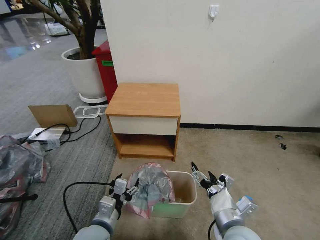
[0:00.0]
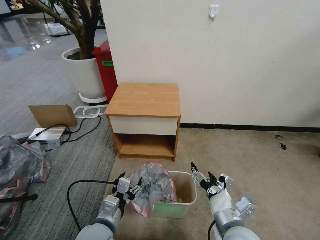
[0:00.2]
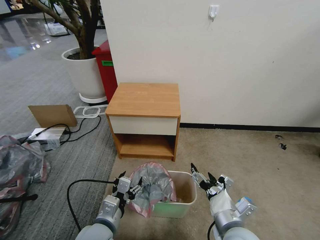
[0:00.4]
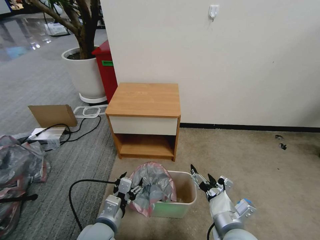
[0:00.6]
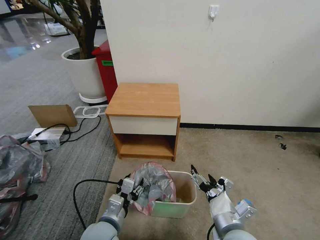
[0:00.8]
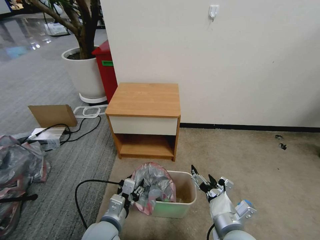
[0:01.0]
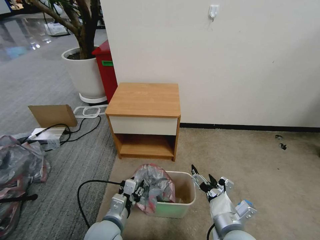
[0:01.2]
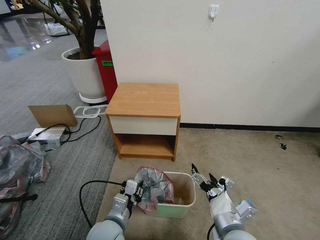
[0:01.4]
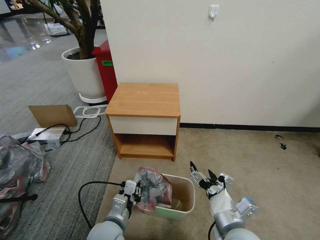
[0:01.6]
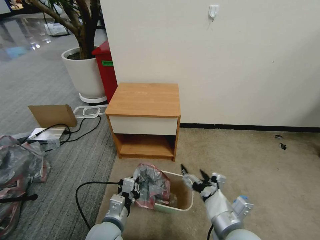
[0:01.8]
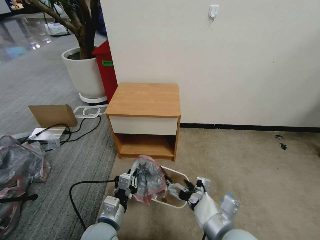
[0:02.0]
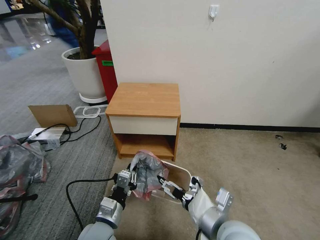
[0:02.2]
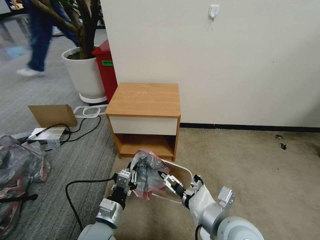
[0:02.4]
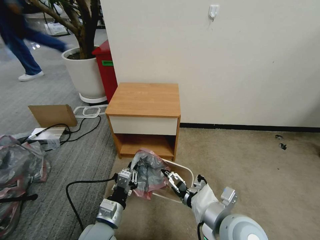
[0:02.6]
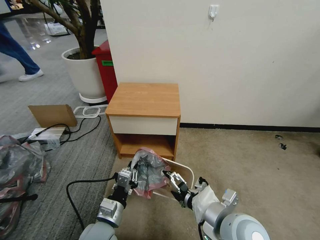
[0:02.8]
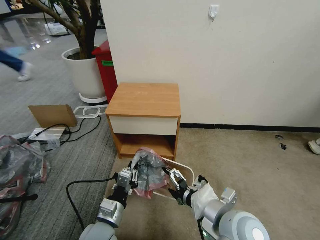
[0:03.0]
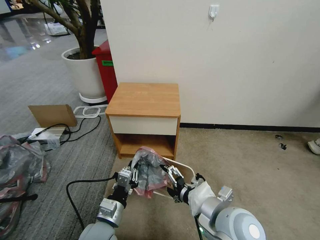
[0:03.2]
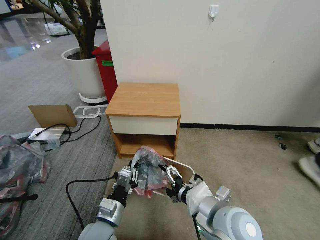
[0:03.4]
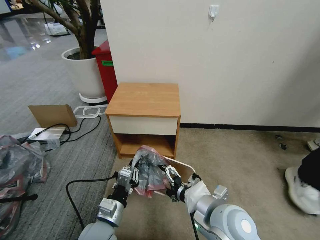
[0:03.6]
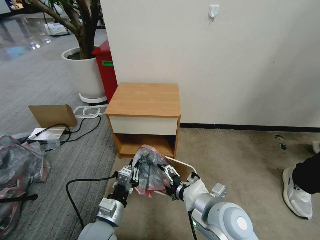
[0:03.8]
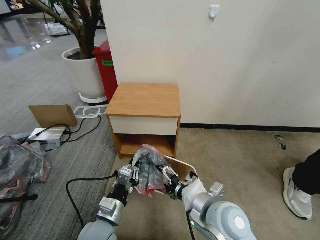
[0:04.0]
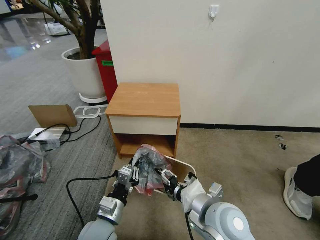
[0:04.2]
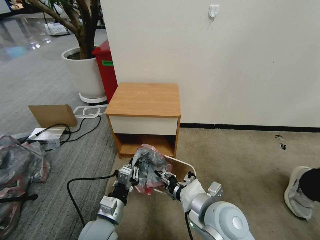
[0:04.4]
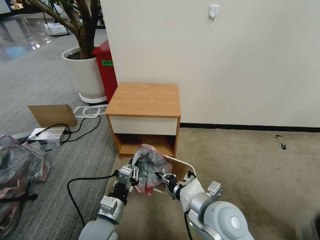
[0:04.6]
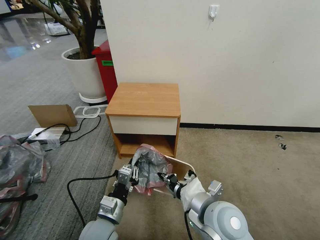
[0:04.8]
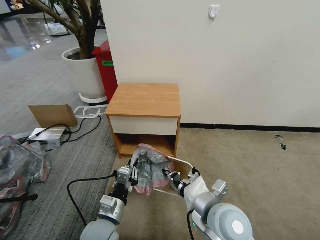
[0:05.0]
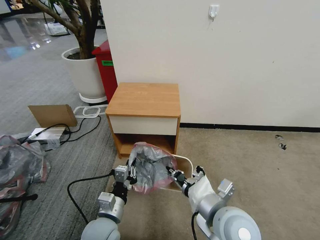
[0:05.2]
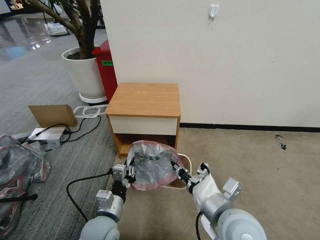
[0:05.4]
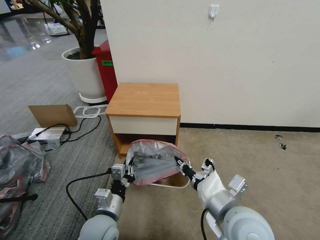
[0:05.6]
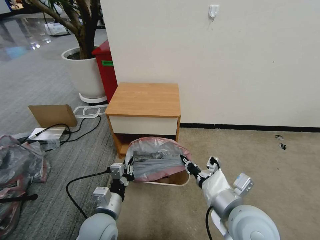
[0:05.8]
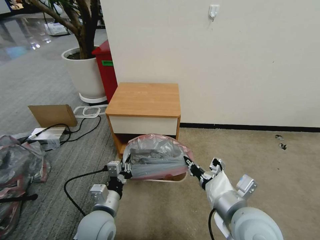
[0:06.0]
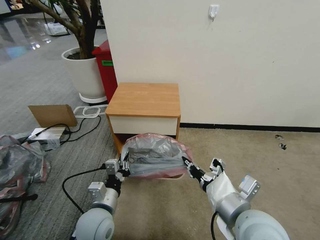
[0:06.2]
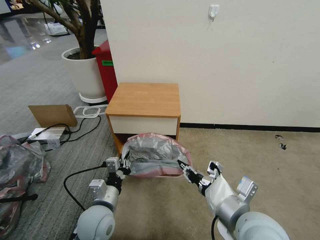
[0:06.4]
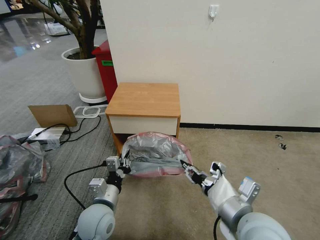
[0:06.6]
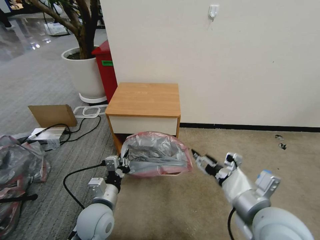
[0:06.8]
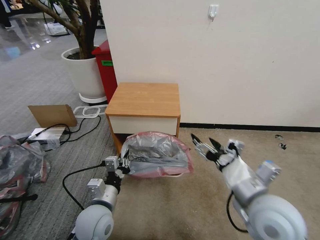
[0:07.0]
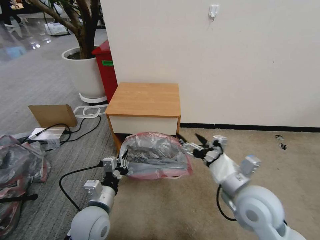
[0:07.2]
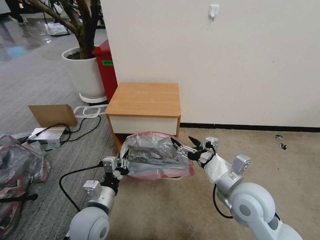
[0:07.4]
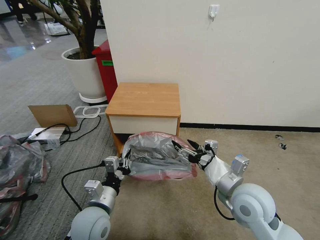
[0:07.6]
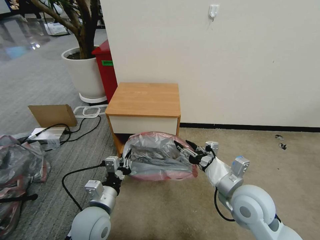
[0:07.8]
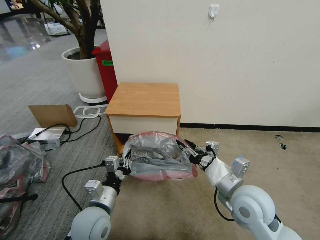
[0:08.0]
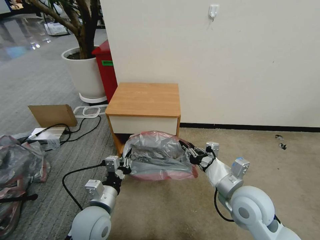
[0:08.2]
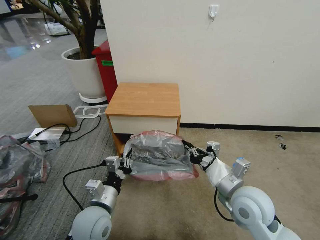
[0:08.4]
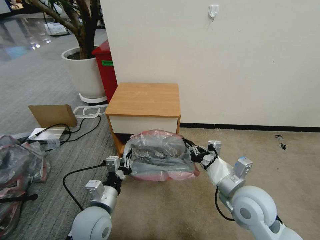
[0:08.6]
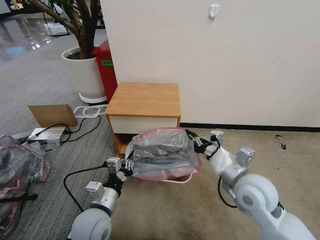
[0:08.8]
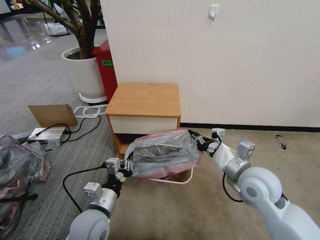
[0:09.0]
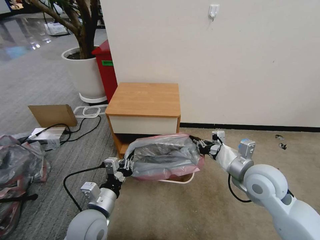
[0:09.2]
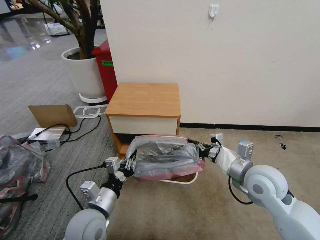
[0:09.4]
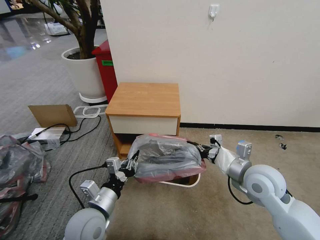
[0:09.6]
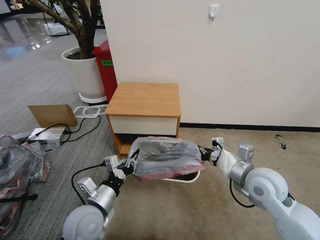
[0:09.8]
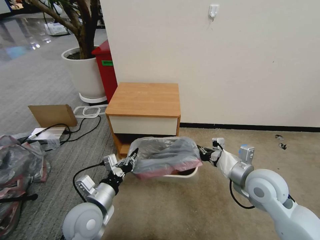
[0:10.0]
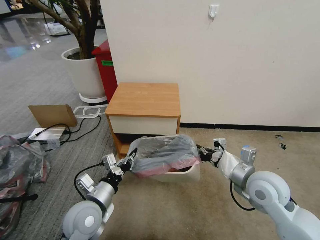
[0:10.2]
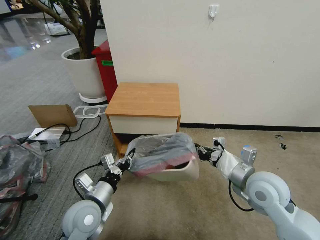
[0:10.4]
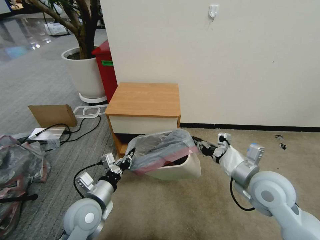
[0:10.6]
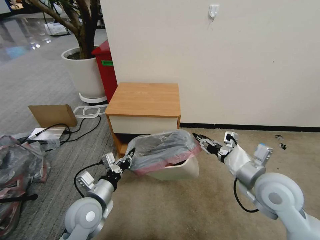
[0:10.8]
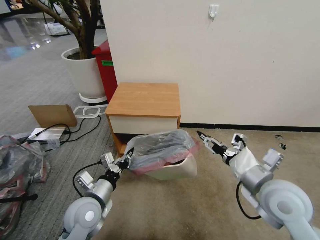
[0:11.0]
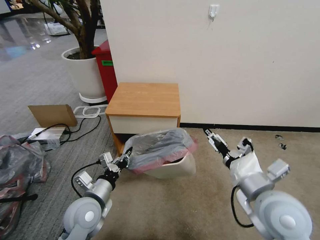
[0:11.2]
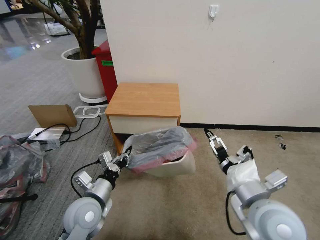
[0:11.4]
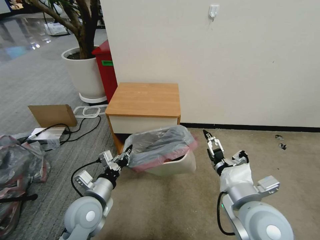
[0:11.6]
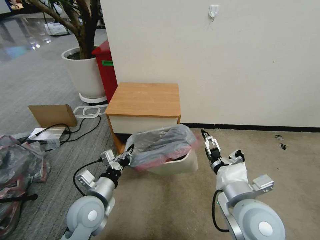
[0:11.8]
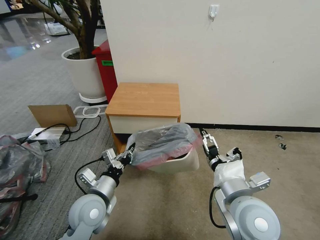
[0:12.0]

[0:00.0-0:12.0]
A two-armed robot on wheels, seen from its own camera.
Task of the whole recording: Pick up the garbage bag from the table and place it over the trash can.
0:00.0 to 0:01.6: The left gripper closes.
0:01.6 to 0:03.0: The right gripper goes approximately 5 cm upward.
0:03.0 to 0:04.4: The right gripper closes its fingers.
0:04.4 to 0:06.0: The right gripper ends up roughly 5 cm from where it was, and closes up.
0:06.0 to 0:07.6: The right gripper travels forward by some 5 cm, and opens.
0:07.6 to 0:09.0: The right gripper changes place by roughly 5 cm, and closes.
0:10.4 to 0:12.0: The right gripper goes roughly 10 cm to the left and backward, and opens its fingers.

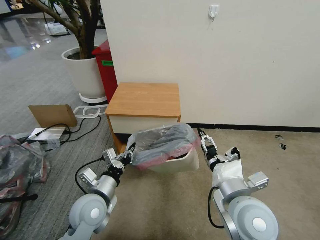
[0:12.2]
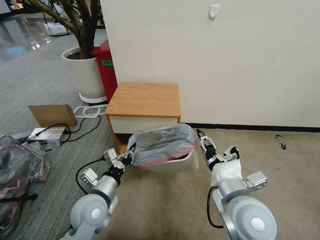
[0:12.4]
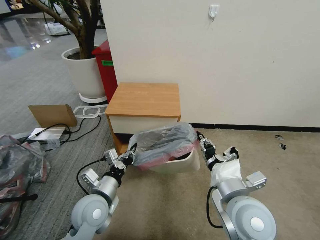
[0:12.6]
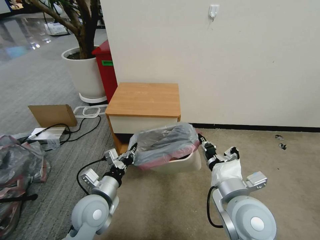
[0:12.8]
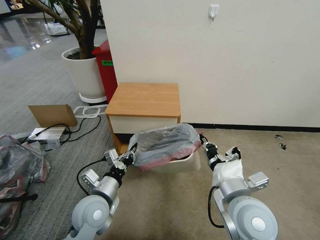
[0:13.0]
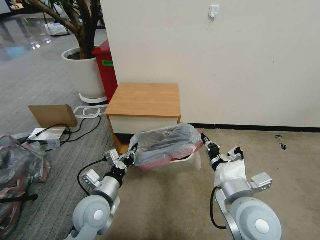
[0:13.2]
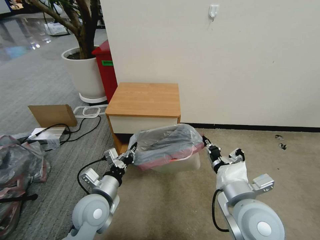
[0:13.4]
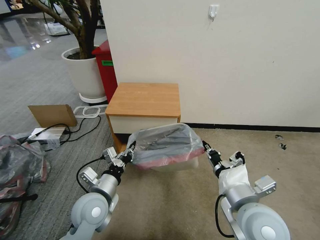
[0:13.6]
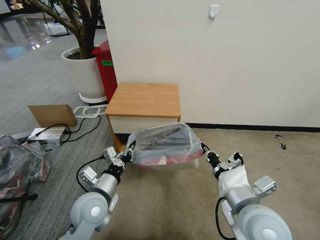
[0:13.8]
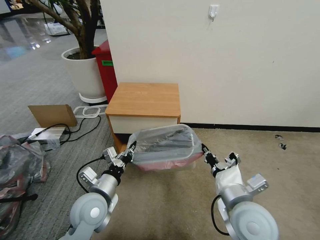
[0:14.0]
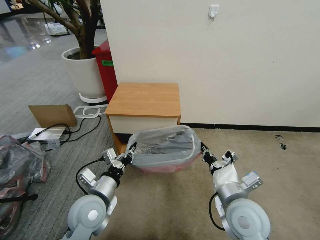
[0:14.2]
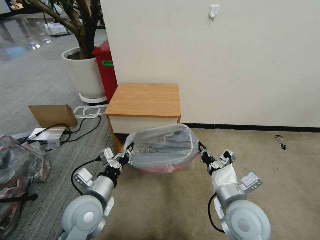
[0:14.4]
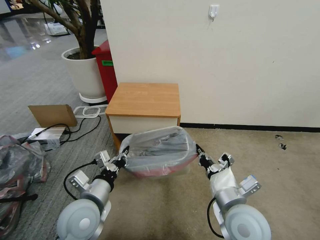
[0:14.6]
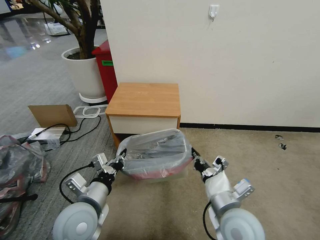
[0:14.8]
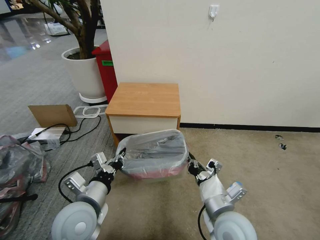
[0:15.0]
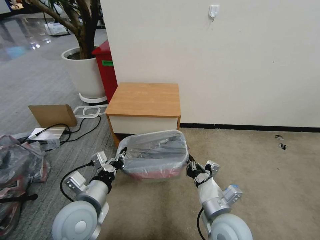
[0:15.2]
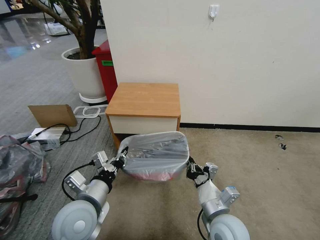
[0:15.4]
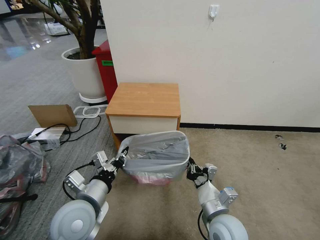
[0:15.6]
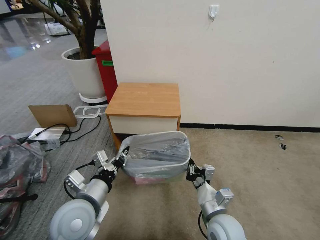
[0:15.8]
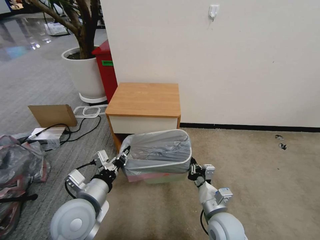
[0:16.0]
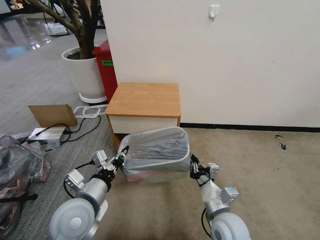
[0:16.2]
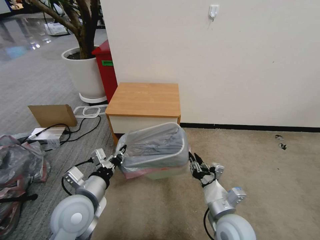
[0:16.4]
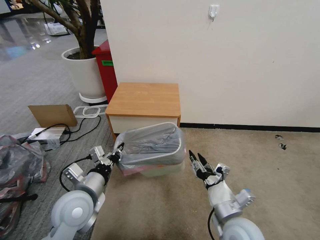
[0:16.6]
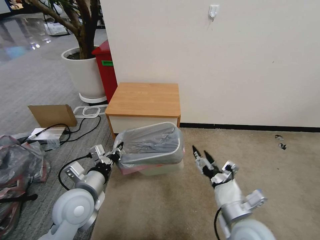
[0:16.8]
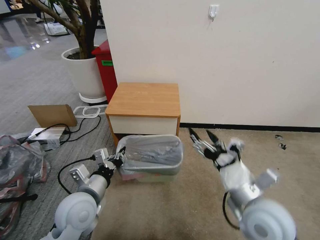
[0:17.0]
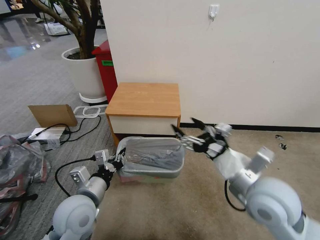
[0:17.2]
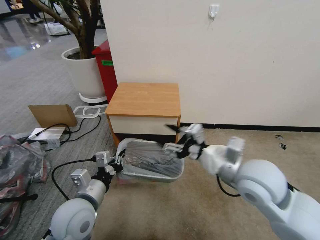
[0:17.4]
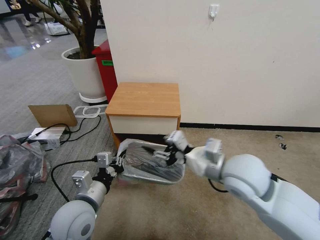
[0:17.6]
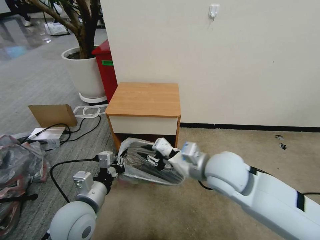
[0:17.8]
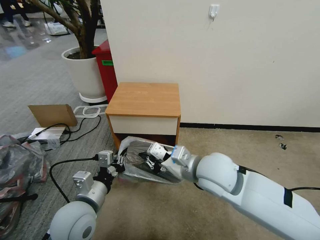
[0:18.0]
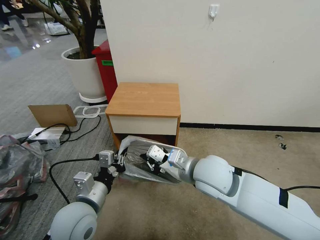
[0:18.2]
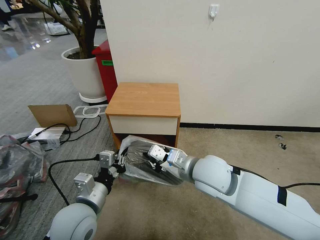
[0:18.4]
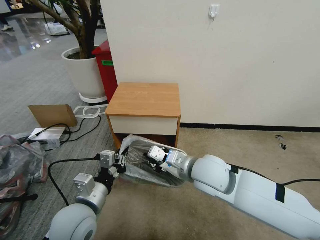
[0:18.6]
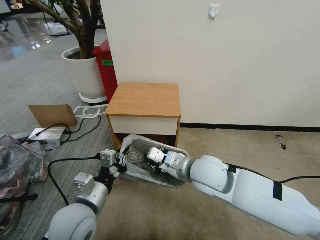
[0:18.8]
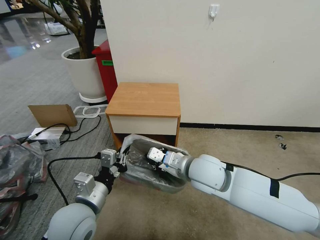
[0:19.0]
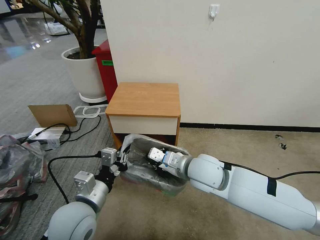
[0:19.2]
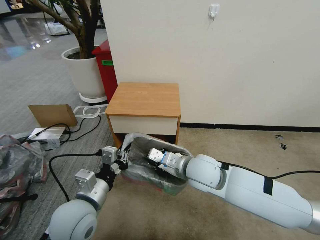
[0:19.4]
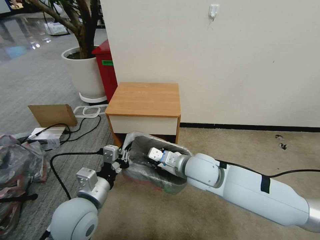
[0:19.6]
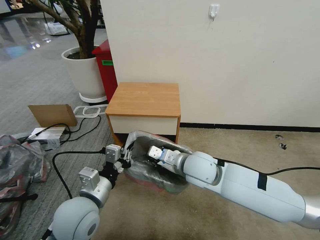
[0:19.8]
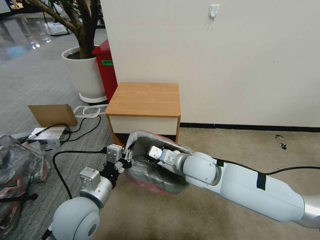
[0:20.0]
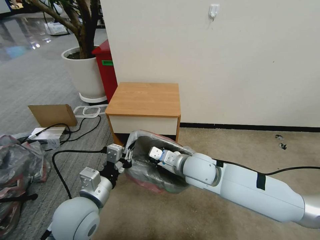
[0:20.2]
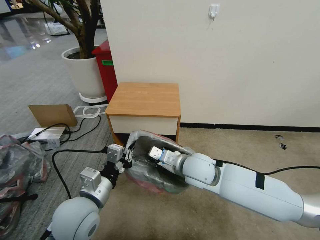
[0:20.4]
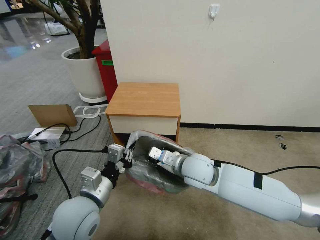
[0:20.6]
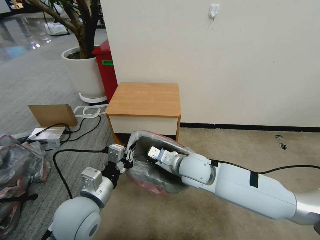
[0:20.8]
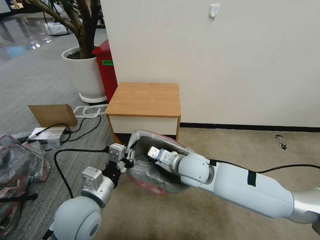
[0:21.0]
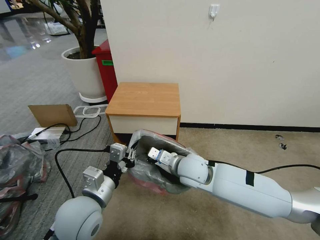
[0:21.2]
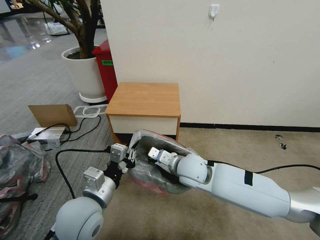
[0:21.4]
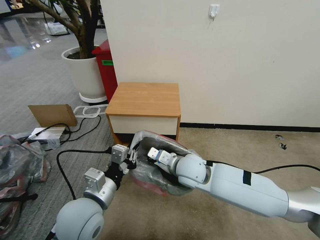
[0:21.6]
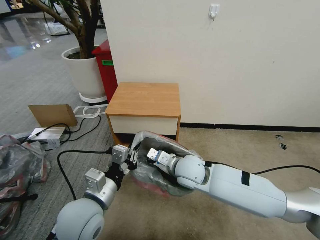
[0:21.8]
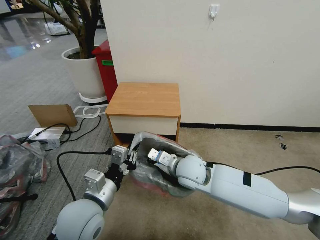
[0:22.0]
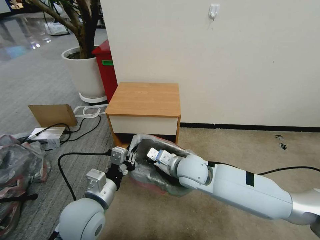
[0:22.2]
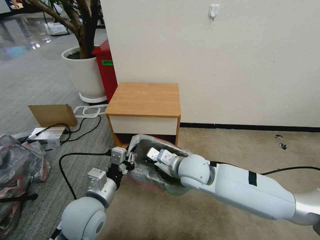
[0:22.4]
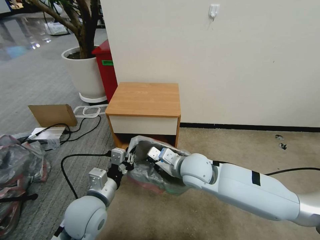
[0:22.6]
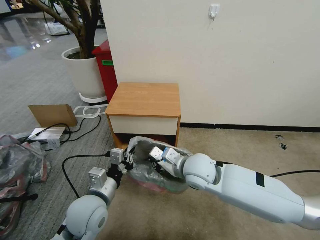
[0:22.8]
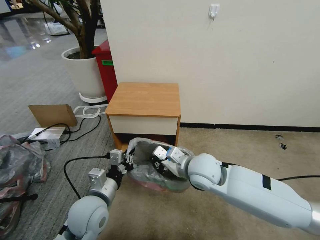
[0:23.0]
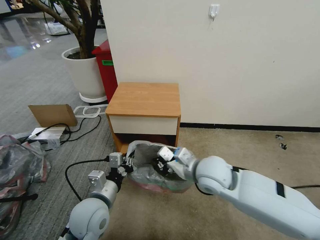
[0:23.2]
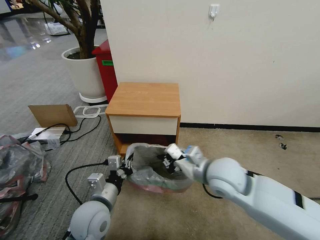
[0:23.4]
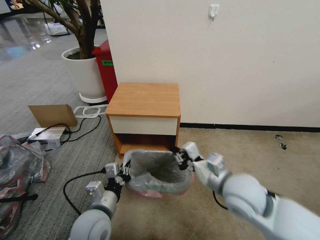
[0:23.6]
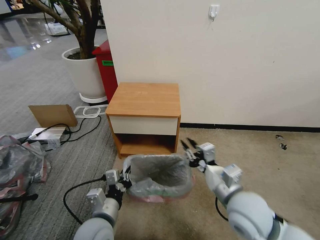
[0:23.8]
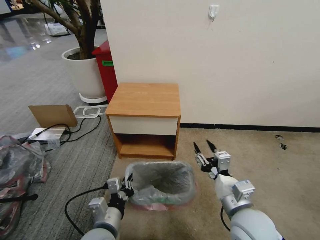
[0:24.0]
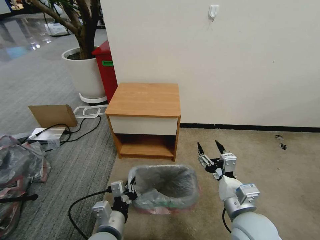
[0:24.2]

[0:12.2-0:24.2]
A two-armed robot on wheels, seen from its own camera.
Task of the whole recording: Pick up the garbage bag from the table and place it over the trash can.
0:12.2 to 0:13.8: The right gripper closes up.
0:13.8 to 0:15.2: The right gripper shifts about 10 cm downward. The left gripper changes place by roughly 5 cm.
0:15.2 to 0:16.6: The right gripper opens its fingers.
0:16.6 to 0:18.2: The right gripper heads upward, forward and to the left, covering about 20 cm, and closes up.
0:18.2 to 0:19.8: The right gripper shifts by some 5 cm.
0:19.8 to 0:22.6: The grippers stay close to where they were, moving slightly.
0:22.6 to 0:24.2: The right gripper is displaced backward and to the right by about 20 cm, and opens up, while the left gripper moves backward and downward, approximately 10 cm.
